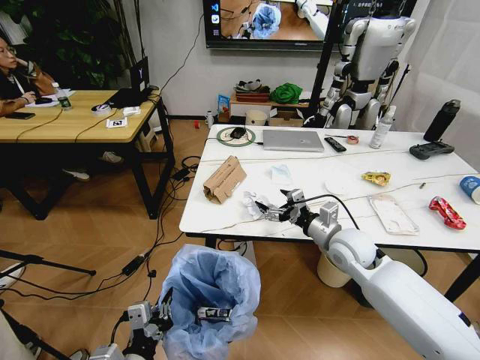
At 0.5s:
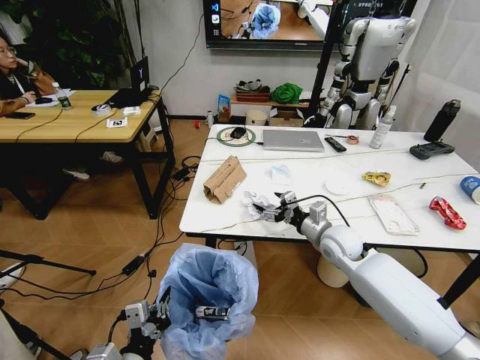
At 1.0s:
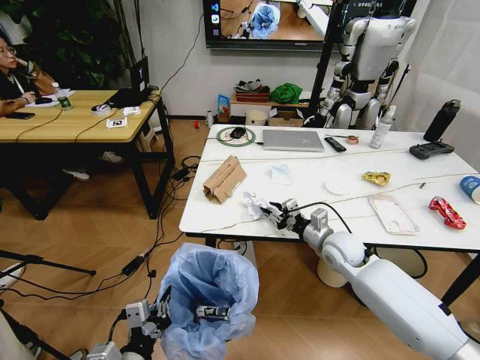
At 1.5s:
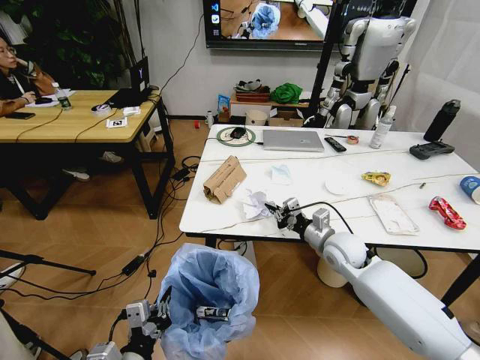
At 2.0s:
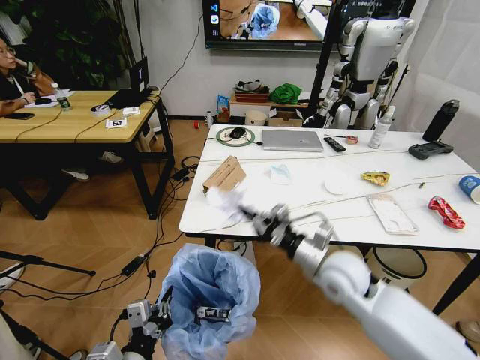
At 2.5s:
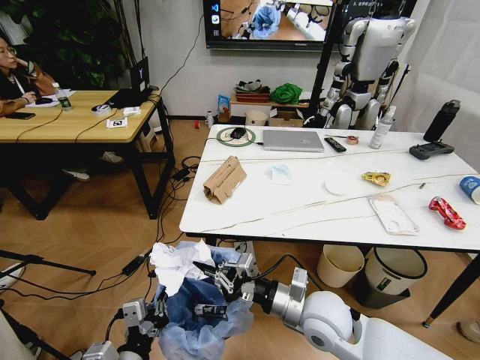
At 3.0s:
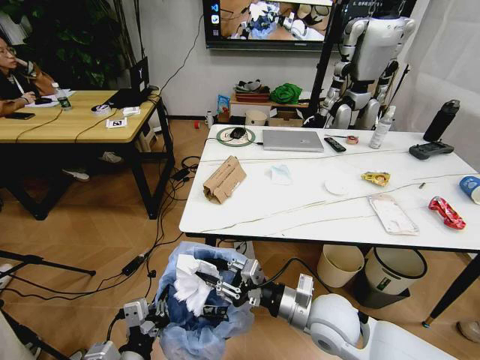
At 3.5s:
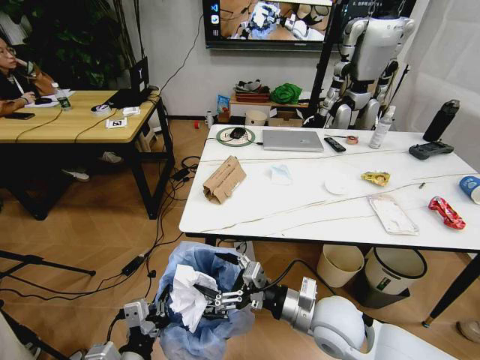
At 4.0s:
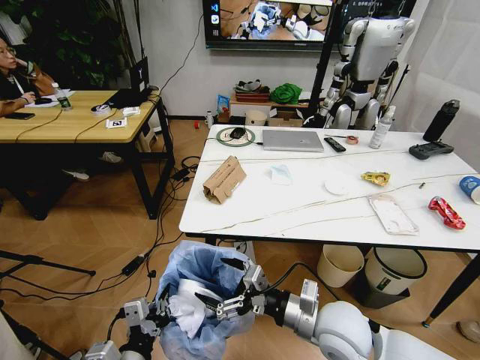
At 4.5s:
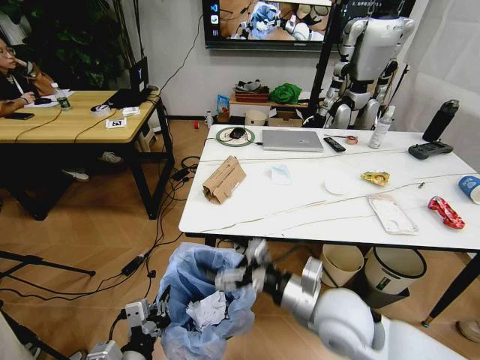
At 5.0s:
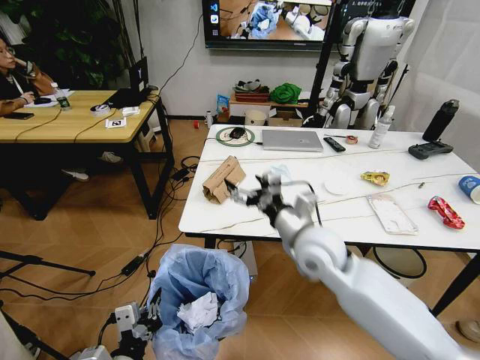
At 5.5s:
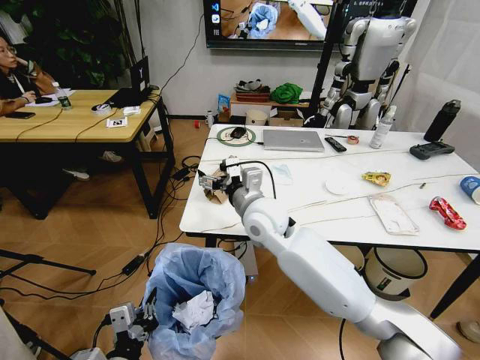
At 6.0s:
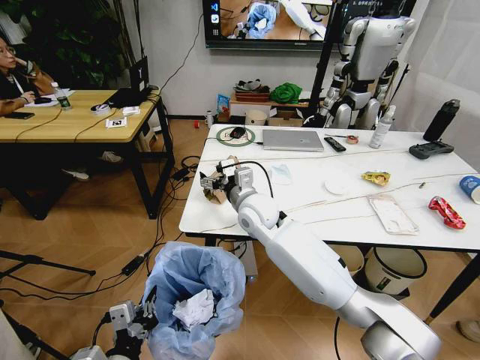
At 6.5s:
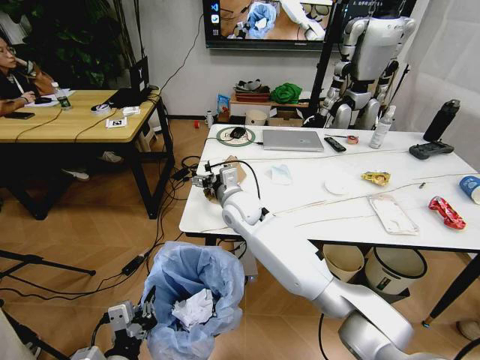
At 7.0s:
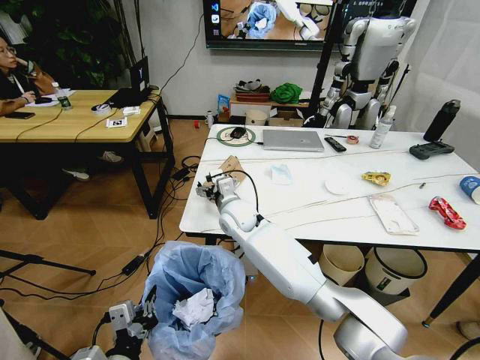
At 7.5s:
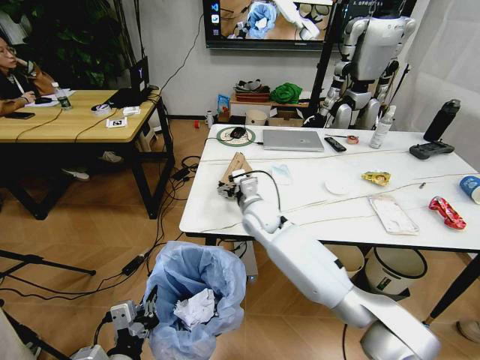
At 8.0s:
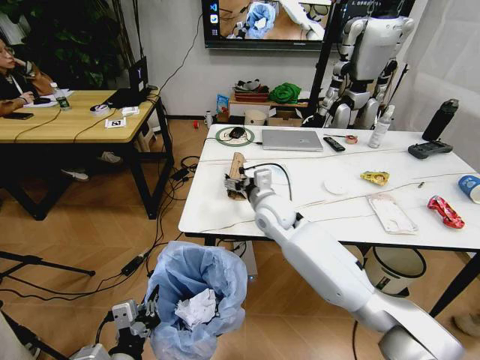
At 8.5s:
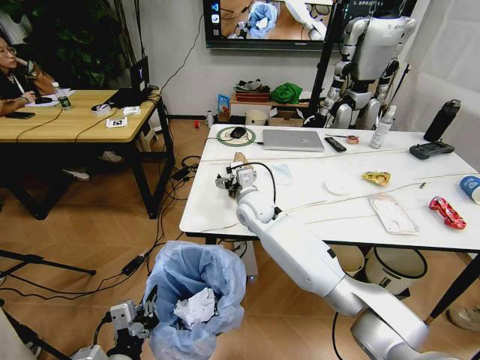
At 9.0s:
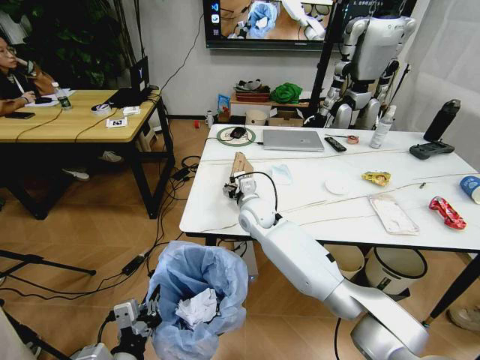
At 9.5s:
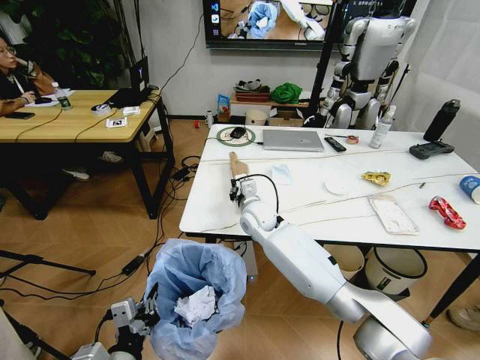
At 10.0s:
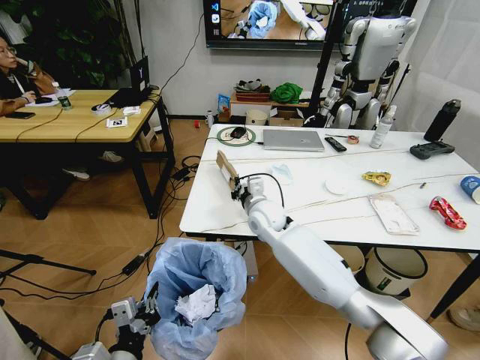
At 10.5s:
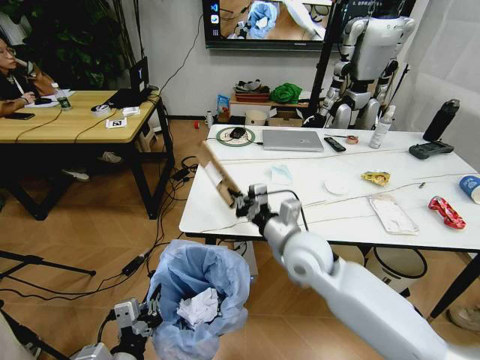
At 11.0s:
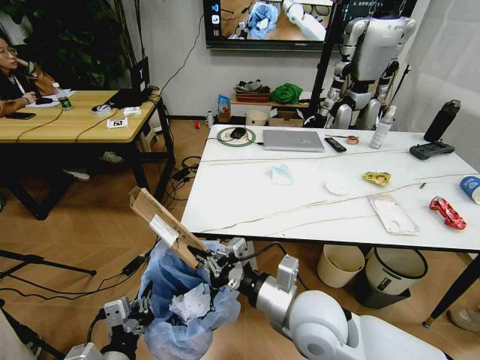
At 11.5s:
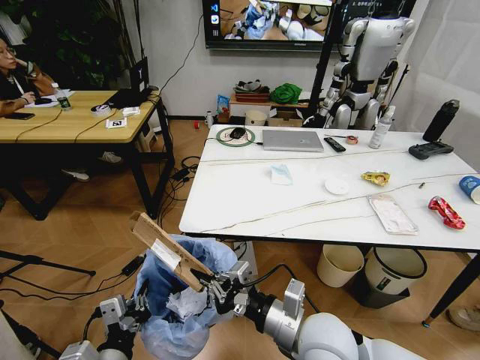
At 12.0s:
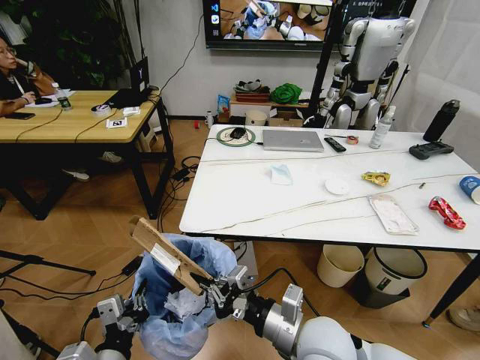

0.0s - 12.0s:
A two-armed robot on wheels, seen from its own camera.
Task of the whole recording: Pick up the trash bin and place the trash from the table into it.
0.0s - 2.0s: The right gripper goes approximately 5 cm backward, and closes its fingers.
2.0s - 4.0s: The right gripper shifts approximately 10 cm backward, and opens its fingers.
4.0s - 6.0s: The right gripper travels forward and to the left by about 30 cm.
8.0s - 10.0s: The right gripper shifts by roughly 5 cm, and closes up.
10.0s - 12.0s: The right gripper moves backward, some 30 cm.

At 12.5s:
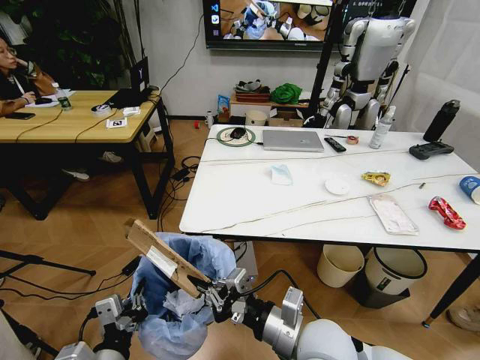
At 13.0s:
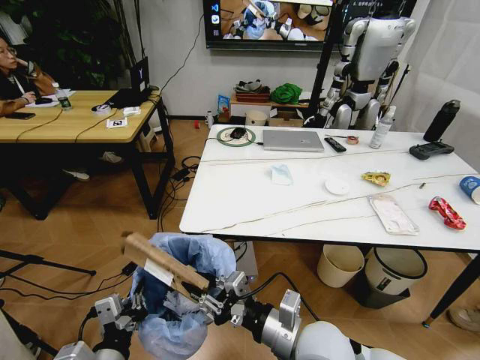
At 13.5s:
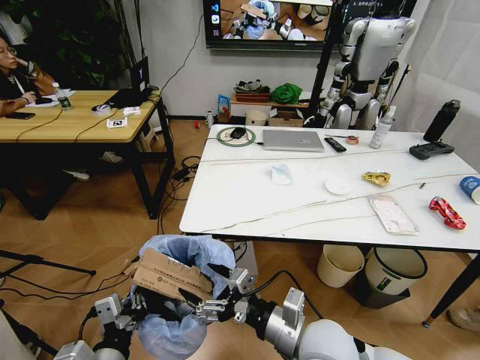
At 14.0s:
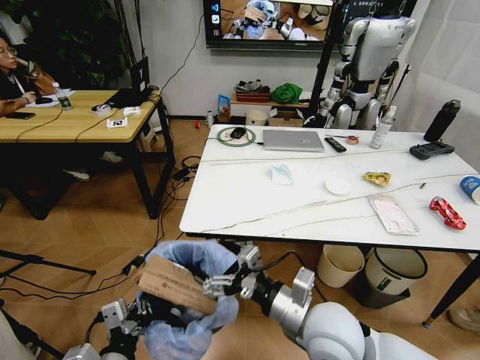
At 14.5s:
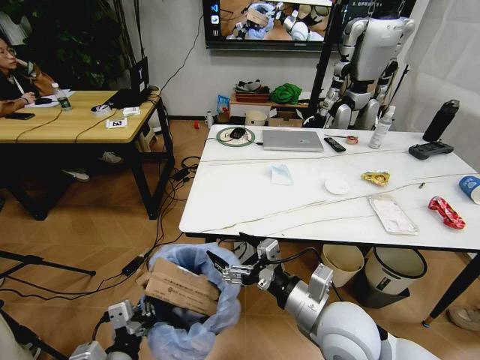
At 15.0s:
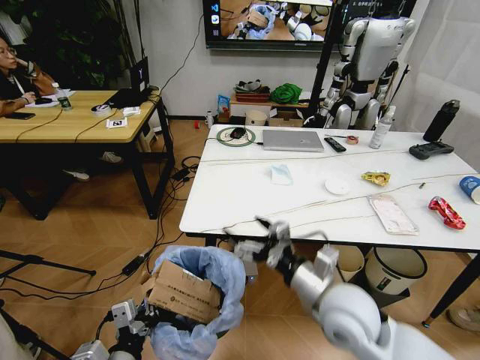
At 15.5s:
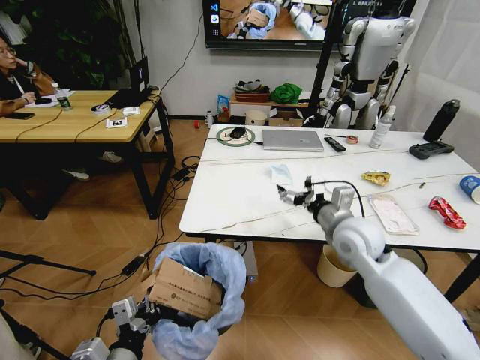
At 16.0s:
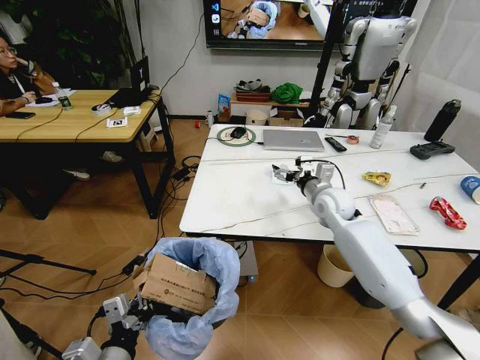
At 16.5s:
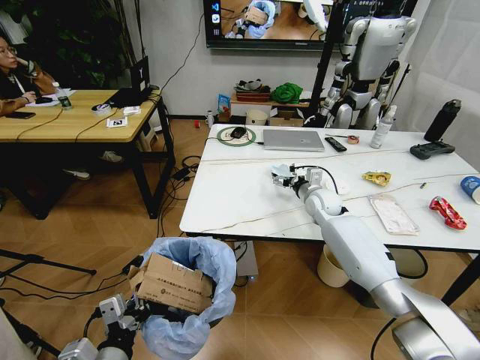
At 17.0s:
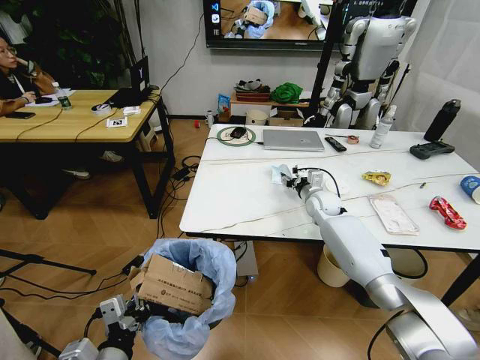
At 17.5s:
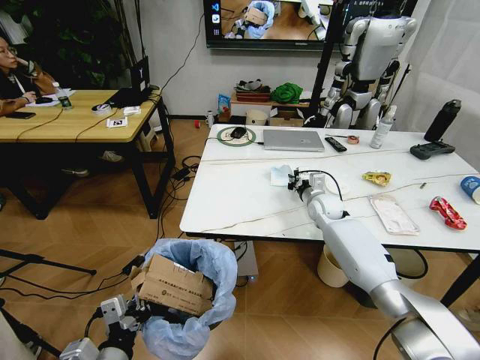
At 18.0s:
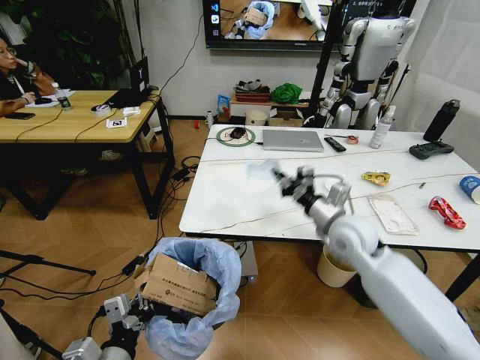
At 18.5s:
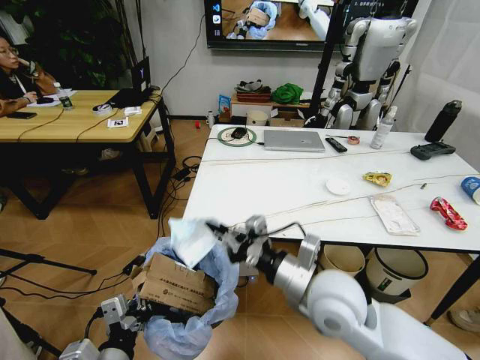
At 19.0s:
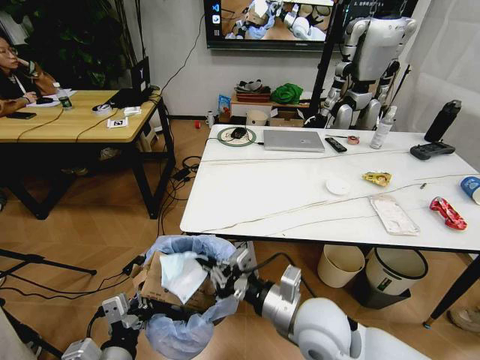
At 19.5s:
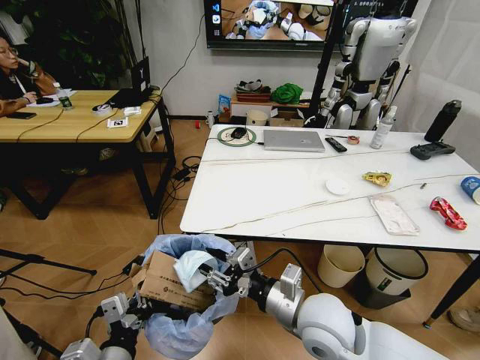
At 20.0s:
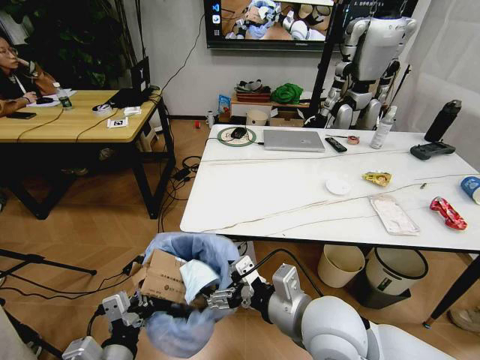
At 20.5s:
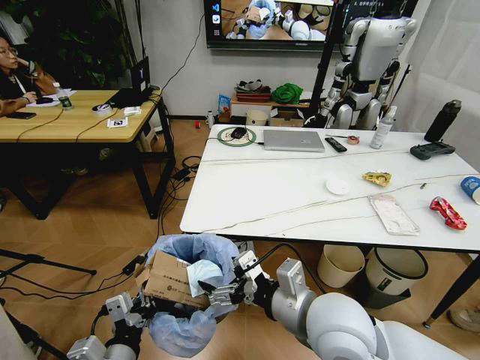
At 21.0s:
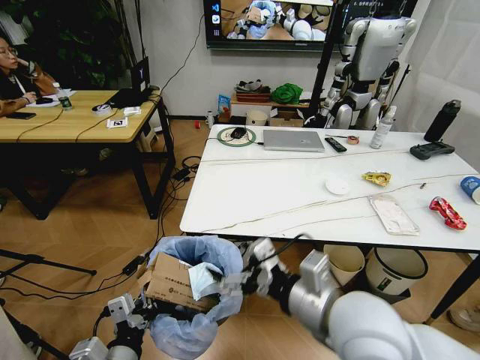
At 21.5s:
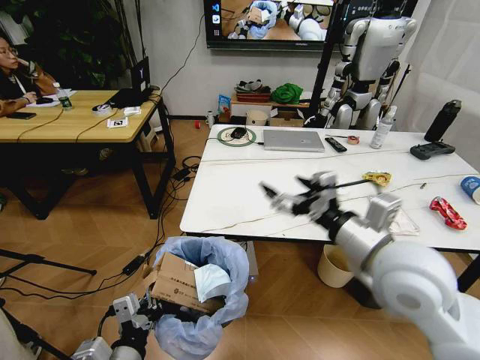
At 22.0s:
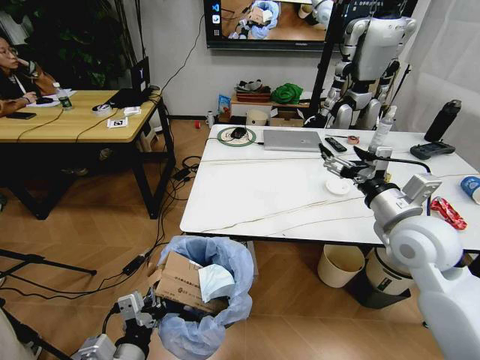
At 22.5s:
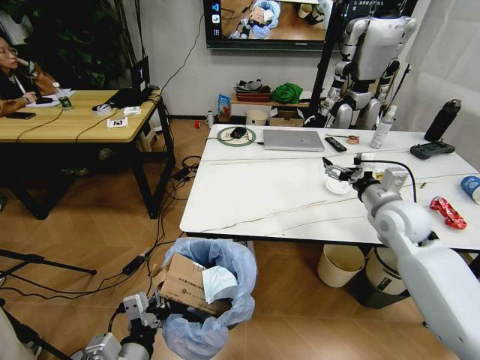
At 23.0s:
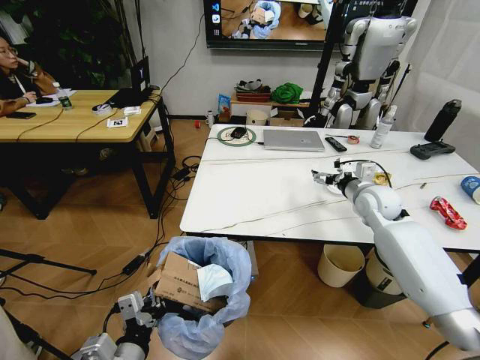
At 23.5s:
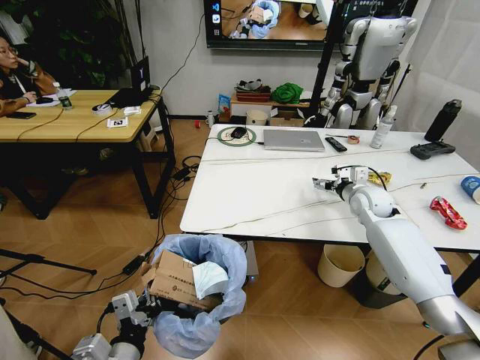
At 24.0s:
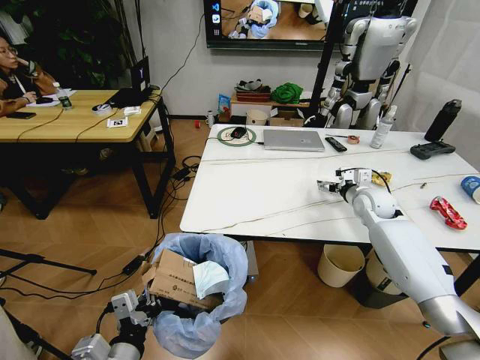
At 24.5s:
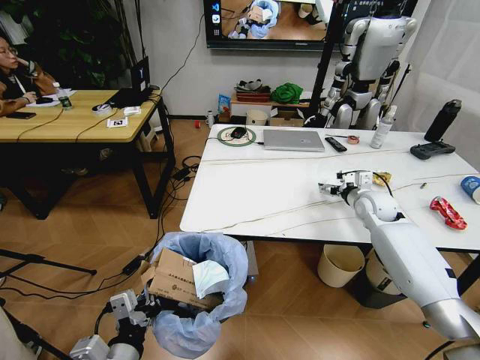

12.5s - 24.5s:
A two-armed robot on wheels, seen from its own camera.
Task of the whole recording: Pick up the trash bin and place the trash from the table into it.
12.5s - 14.5s: The right gripper opens up.
14.5s - 16.5s: The right gripper shifts roughly 35 cm forward.
16.5s - 18.5s: The right gripper is displaced backward by about 30 cm, and closes its fingers.
18.5s - 20.5s: The right gripper shifts by about 5 cm, and opens.
20.5s - 22.5s: The right gripper is displaced forward and to the right by roughly 30 cm.
22.5s - 24.5s: The right gripper heads forward and downward, covering approximately 15 cm.

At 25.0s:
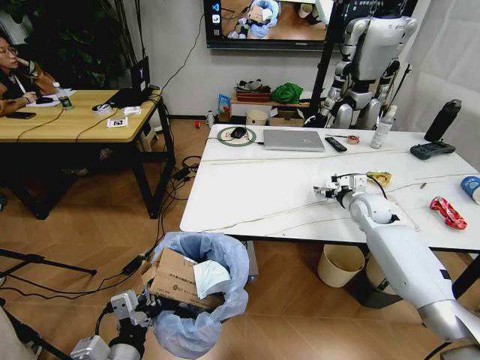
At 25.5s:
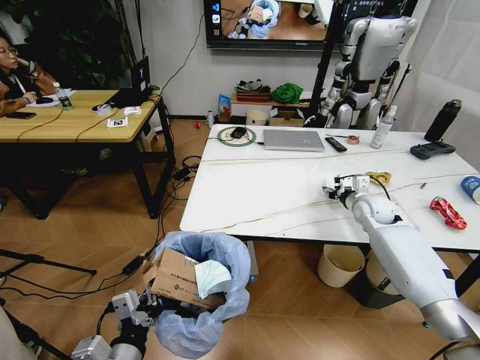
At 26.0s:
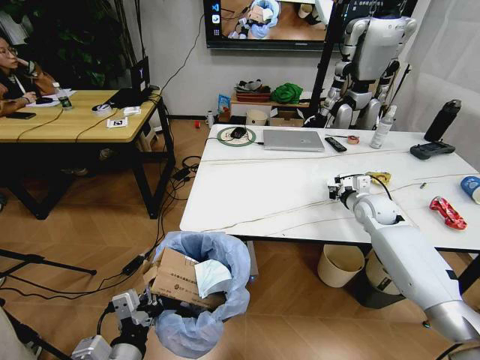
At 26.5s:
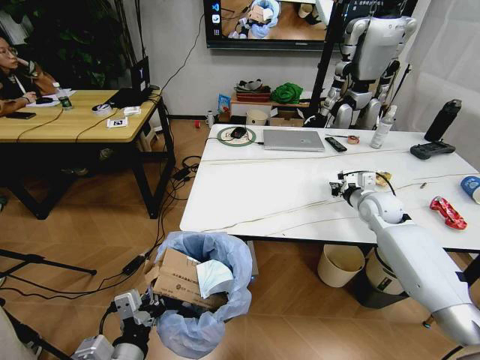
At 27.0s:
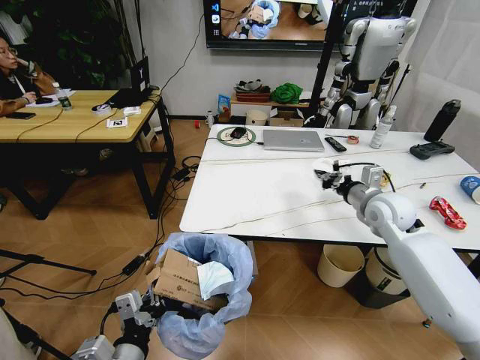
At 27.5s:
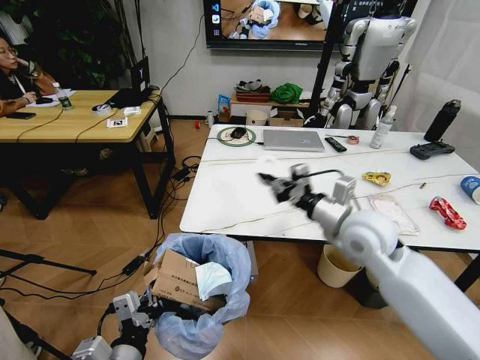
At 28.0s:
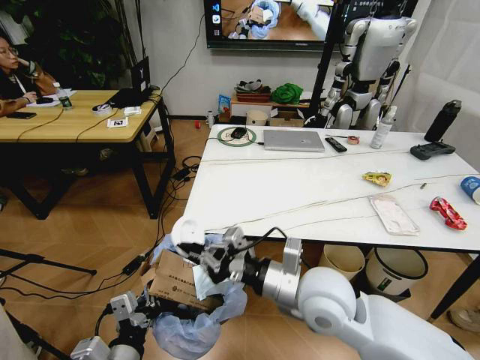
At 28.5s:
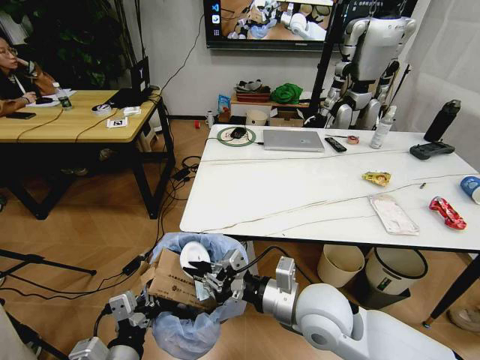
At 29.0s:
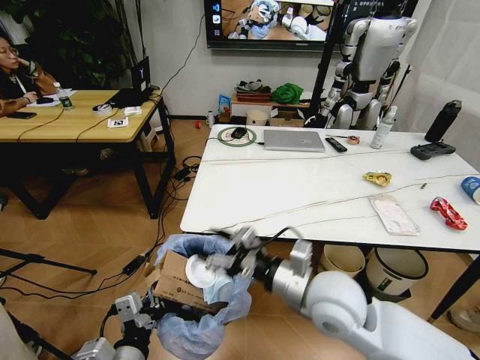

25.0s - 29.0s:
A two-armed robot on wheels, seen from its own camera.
Task of the whole recording: Pick up the trash bin and place the trash from the table into it.
25.0s - 27.0s: The right gripper heads upward and backward, covering approximately 10 cm, and closes its fingers.
27.0s - 29.0s: The right gripper shifts roughly 30 cm backward and to the left, and opens up.
